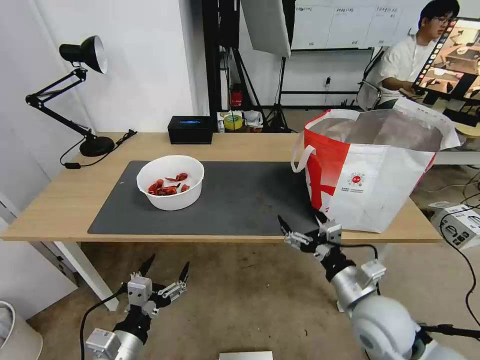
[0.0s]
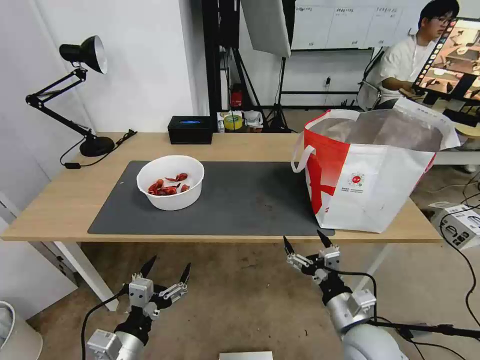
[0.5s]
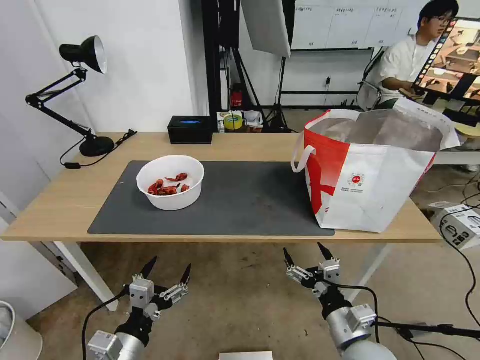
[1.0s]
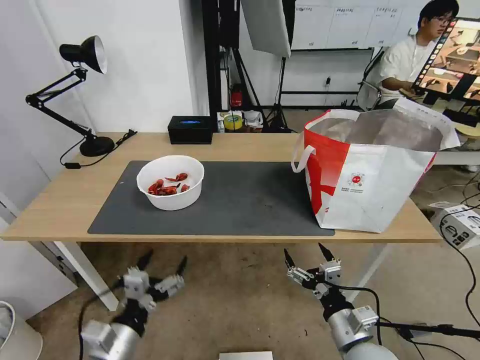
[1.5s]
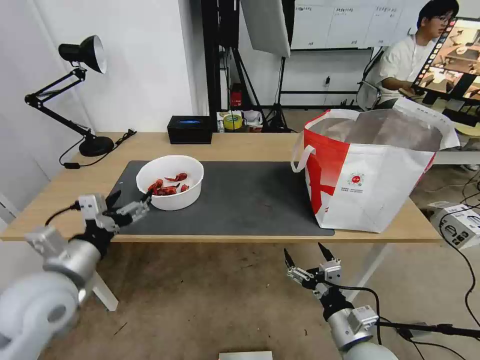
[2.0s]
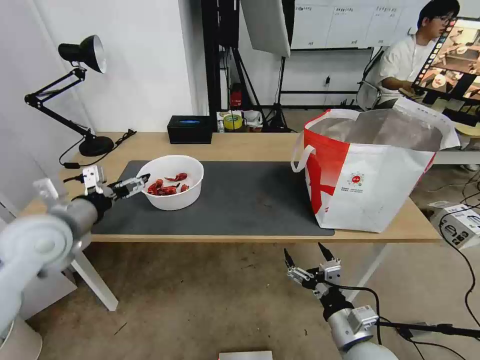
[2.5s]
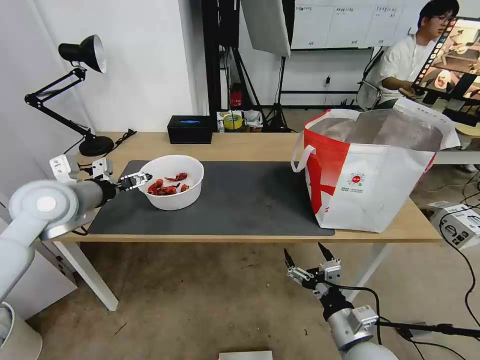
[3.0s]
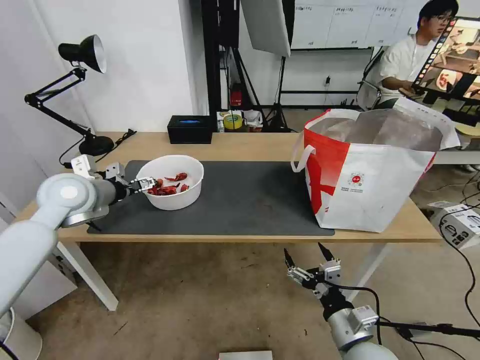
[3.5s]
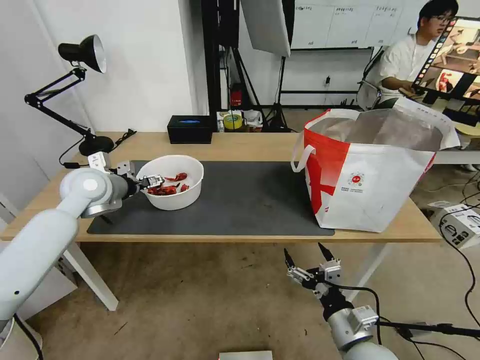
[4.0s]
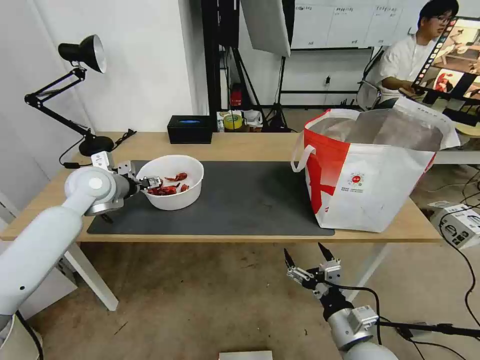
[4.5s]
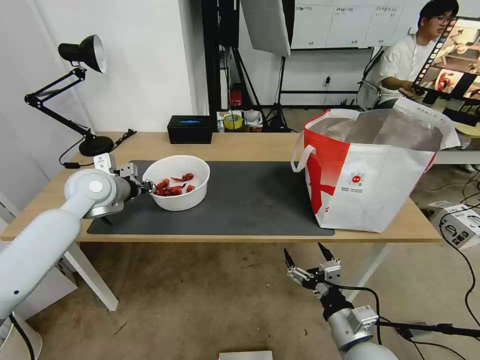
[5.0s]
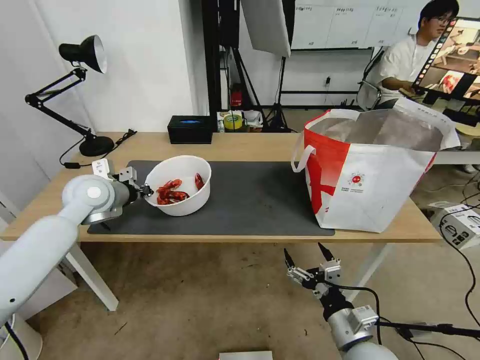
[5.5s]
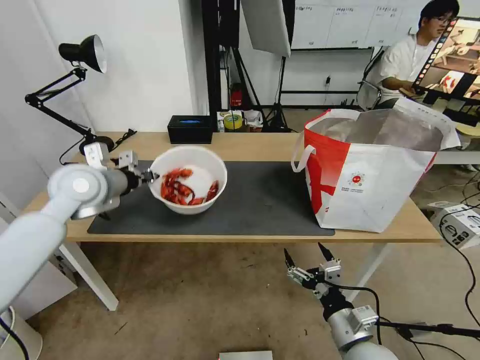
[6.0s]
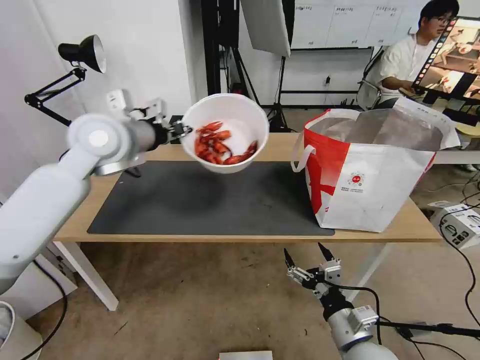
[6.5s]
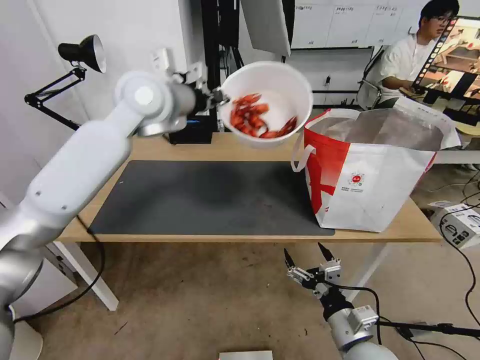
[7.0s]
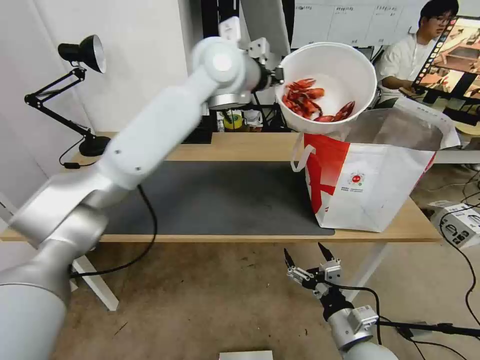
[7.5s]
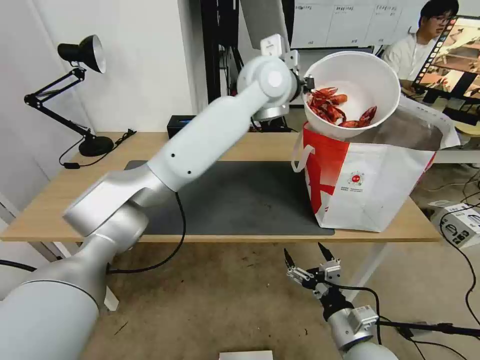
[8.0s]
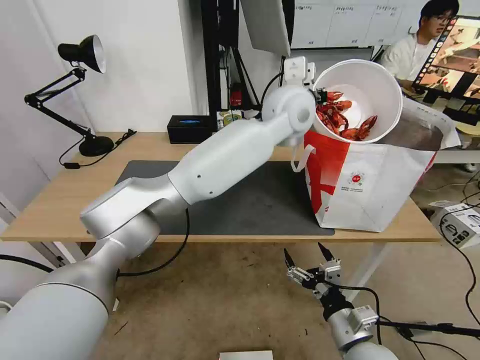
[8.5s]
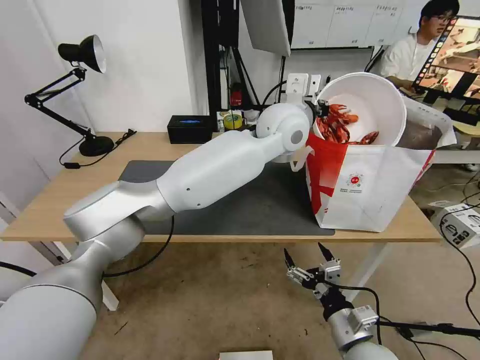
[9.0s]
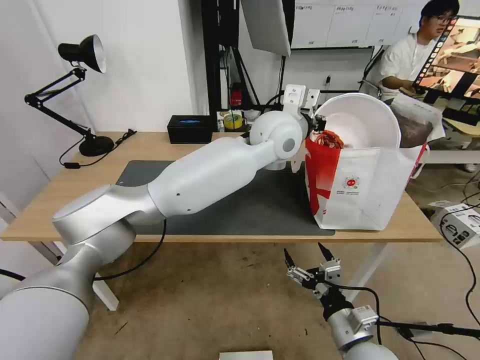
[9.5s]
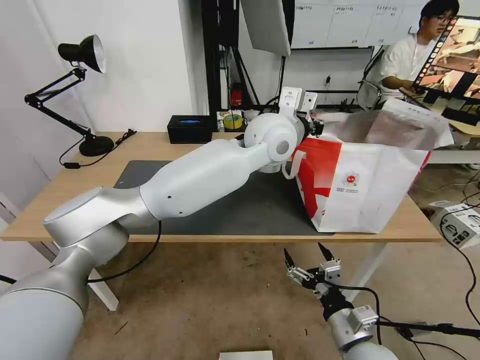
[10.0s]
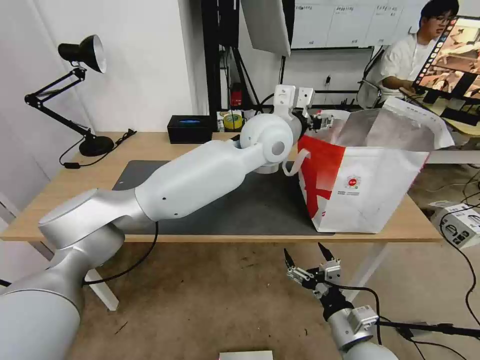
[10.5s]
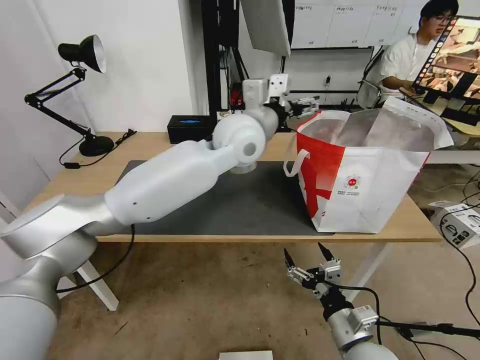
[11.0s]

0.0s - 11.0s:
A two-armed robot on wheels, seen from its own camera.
Task of the whole recording: Pick up the trash from the table and place it into the takeout bag.
0.0s - 2.0s: The right gripper travels backward and downward by about 10 cm. The left gripper is displaced upward, forward and to the left by some 20 cm.
2.0s - 3.5s: The left gripper goes approximately 20 cm forward.
3.5s - 5.5s: The left gripper closes its fingers.
5.5s - 7.5s: The left gripper heads to the right and upward, covering roughly 35 cm.
7.5s - 9.0s: The left gripper heads to the right and downward, covering roughly 15 cm.
9.0s - 11.0s: The left gripper travels to the left by roughly 10 cm, and opens.

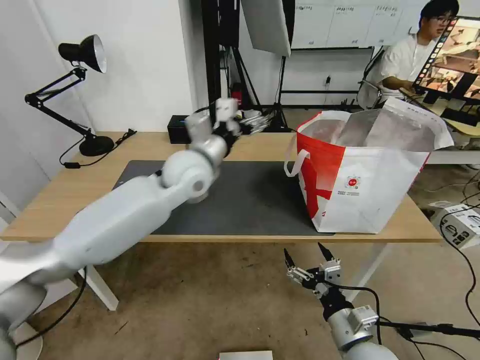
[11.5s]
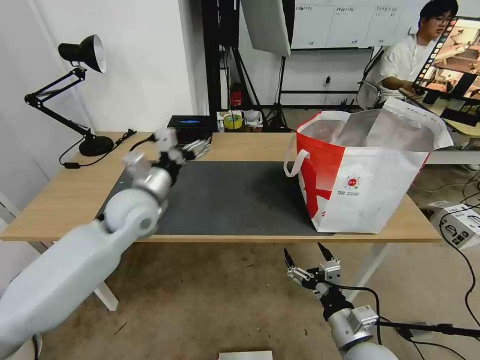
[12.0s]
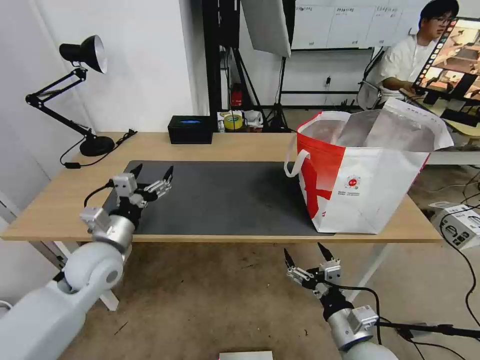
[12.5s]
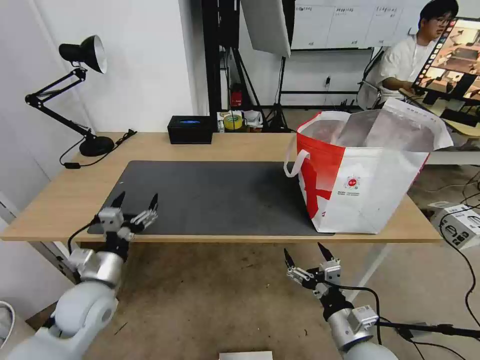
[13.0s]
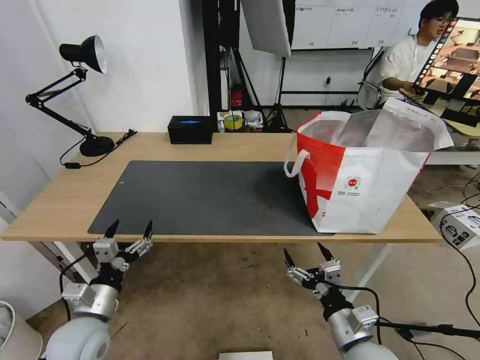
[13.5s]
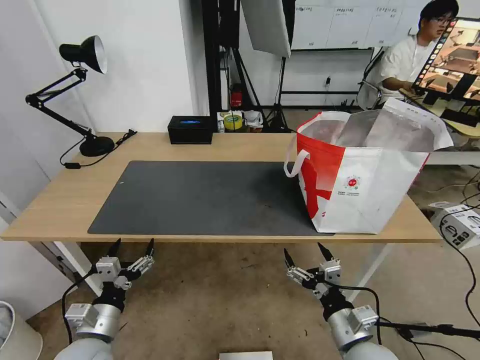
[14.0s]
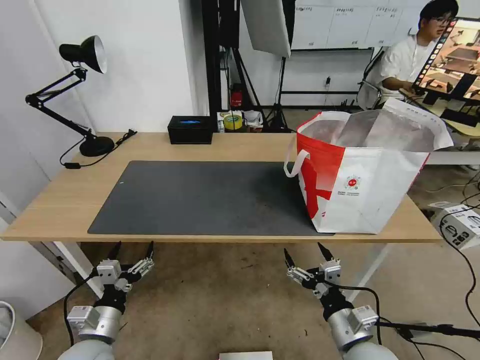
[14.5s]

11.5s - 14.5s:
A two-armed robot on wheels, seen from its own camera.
Task of the whole recording: Pick up the trash from the table and place it into the takeout bag.
11.5s - 13.0s: The left gripper shifts approximately 35 cm to the left, backward and downward.
13.0s - 14.5s: The left gripper travels backward and downward by about 10 cm.

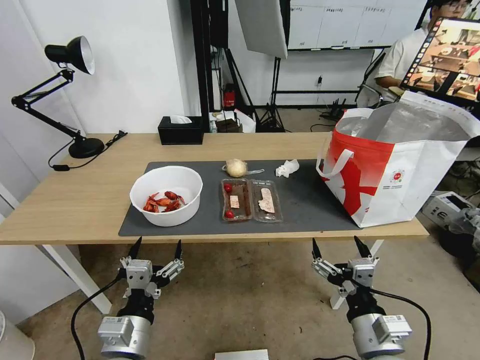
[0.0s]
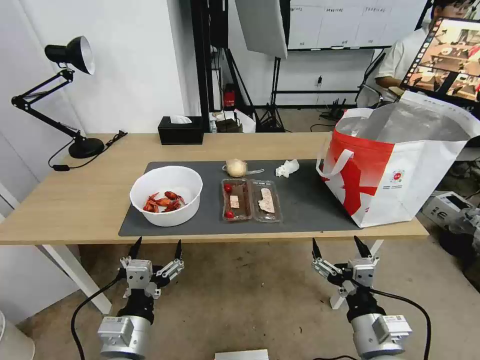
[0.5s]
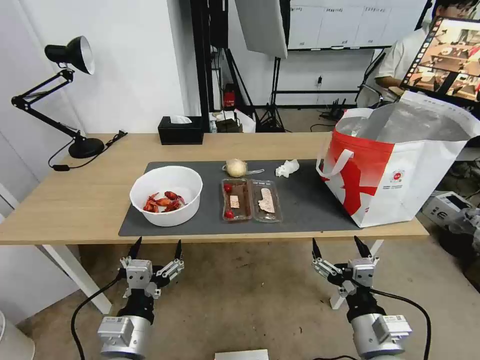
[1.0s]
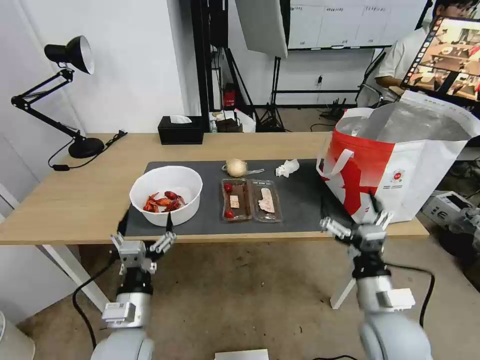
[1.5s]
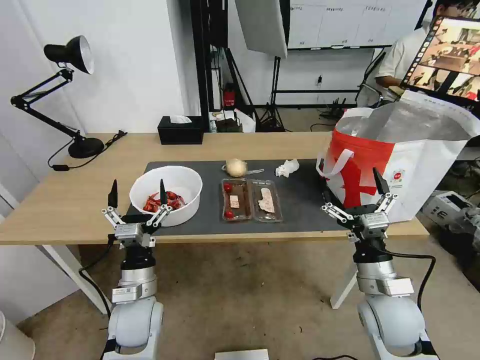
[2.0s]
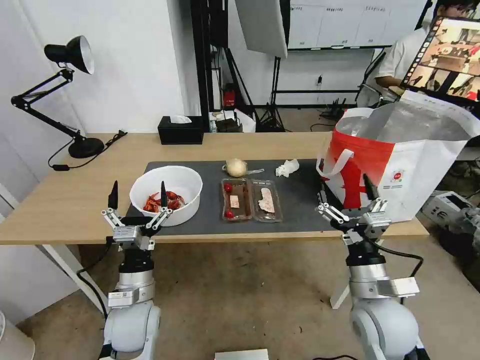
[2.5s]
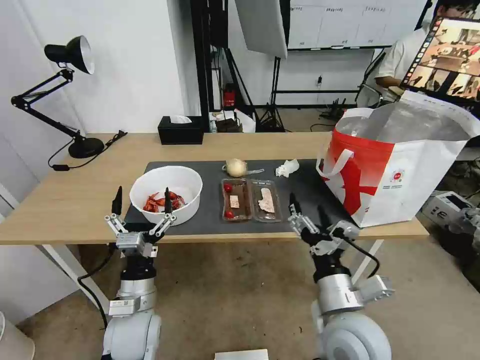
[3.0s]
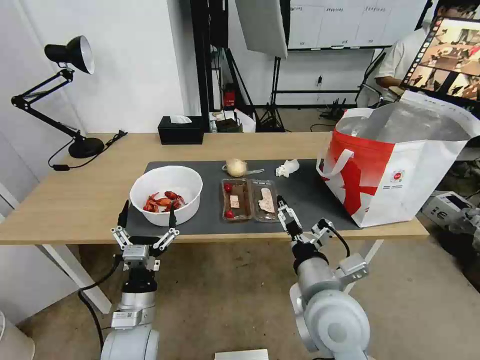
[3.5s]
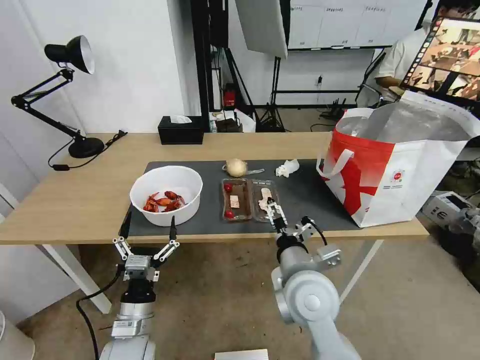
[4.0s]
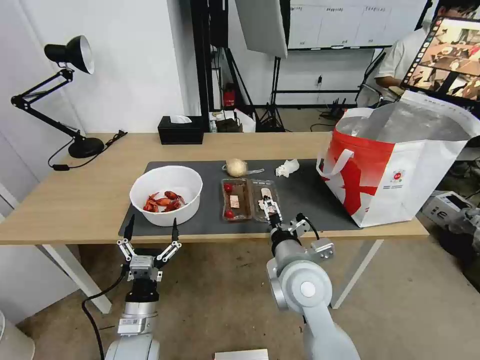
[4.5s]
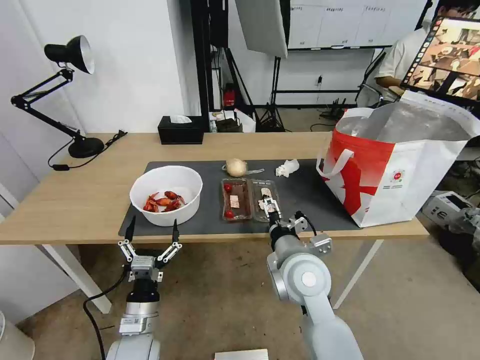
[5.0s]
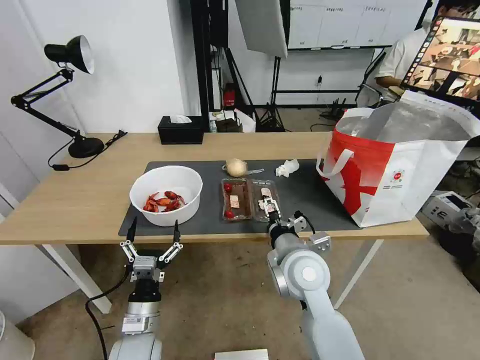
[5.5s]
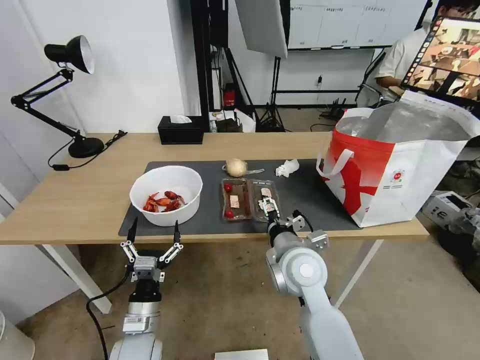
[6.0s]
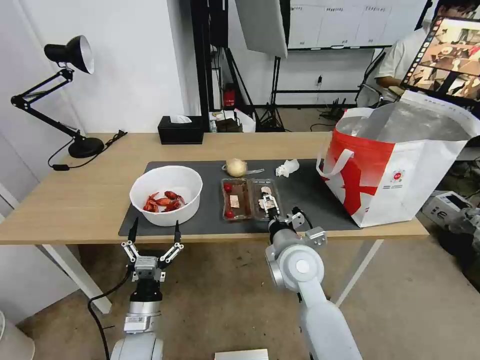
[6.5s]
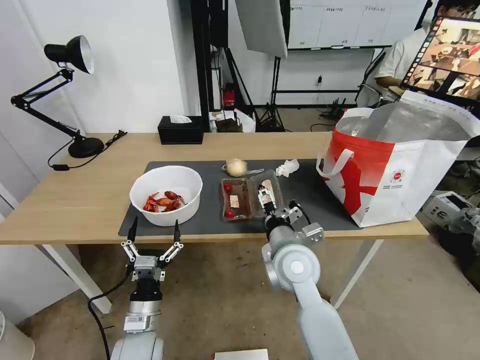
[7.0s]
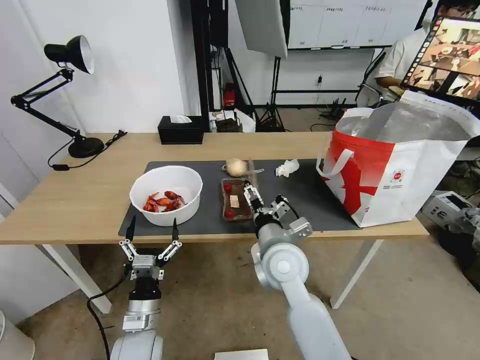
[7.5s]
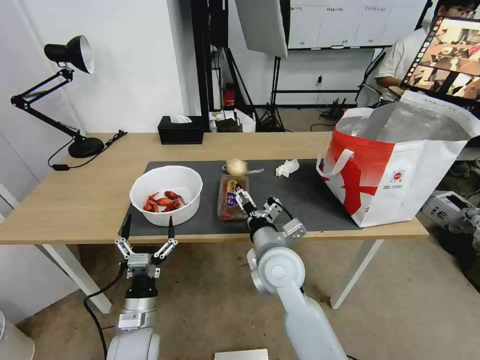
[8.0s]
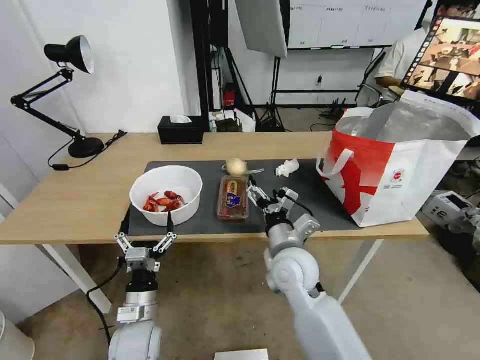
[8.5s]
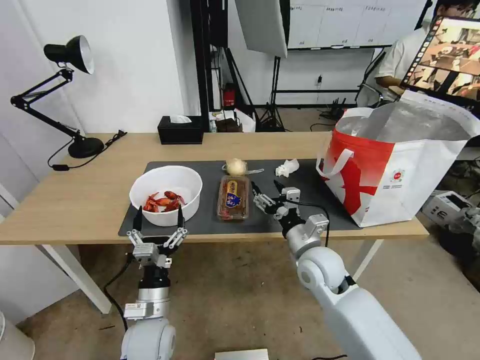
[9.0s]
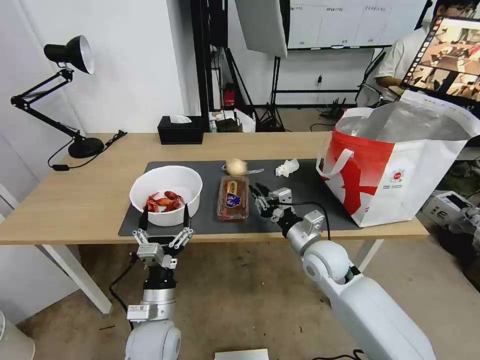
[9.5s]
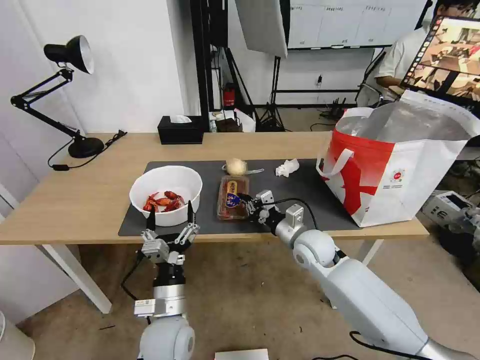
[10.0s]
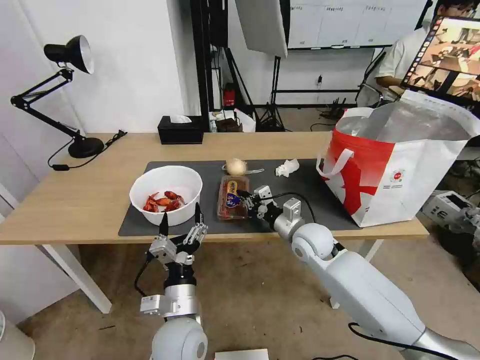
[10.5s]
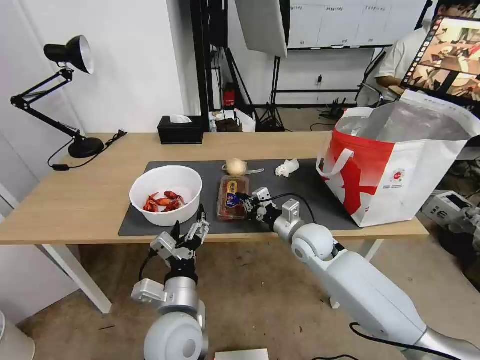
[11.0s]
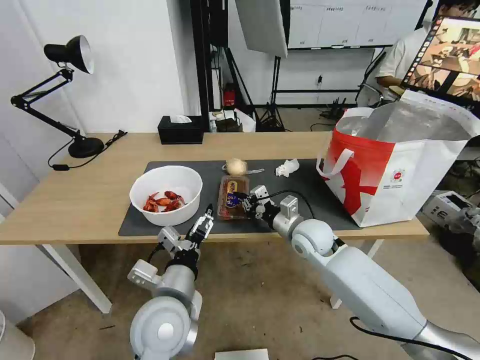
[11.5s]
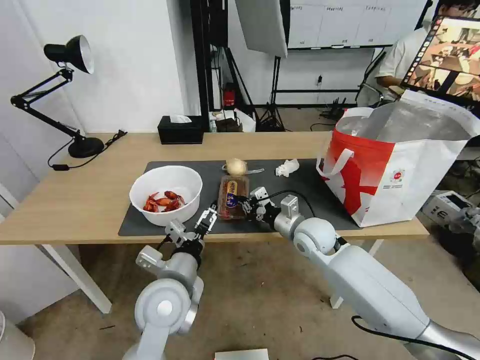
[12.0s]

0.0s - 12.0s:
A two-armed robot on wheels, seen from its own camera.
Task of the whole recording: Pick up the trash from the table and place it into the takeout bag.
2.0s - 4.0s: The left gripper travels backward by approximately 5 cm. Meanwhile the right gripper is displaced to the left by roughly 15 cm.
4.0s - 6.0s: The right gripper goes roughly 5 cm forward.
8.0s - 10.0s: The left gripper shifts roughly 10 cm to the right. Meanwhile the right gripper is displaced to the right, forward and downward by about 15 cm, and closes.
10.0s - 12.0s: The left gripper shifts about 10 cm upward.
